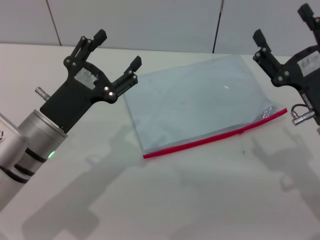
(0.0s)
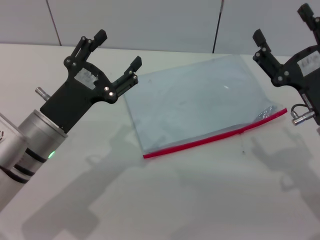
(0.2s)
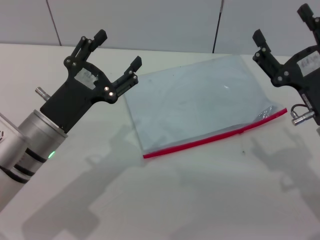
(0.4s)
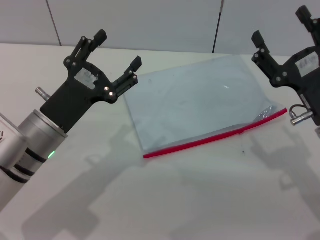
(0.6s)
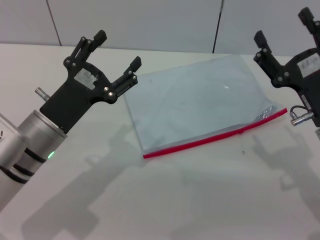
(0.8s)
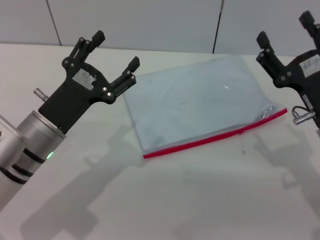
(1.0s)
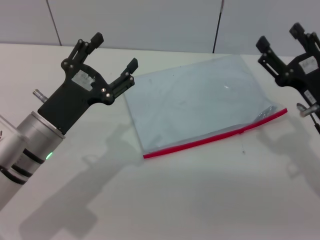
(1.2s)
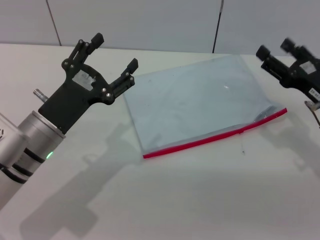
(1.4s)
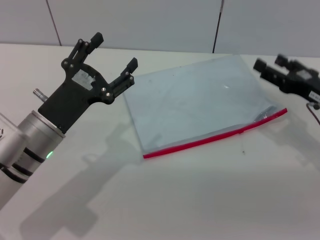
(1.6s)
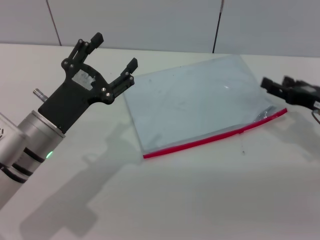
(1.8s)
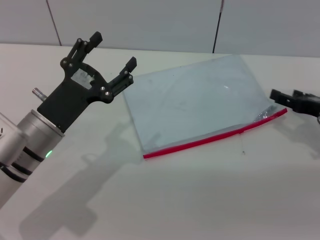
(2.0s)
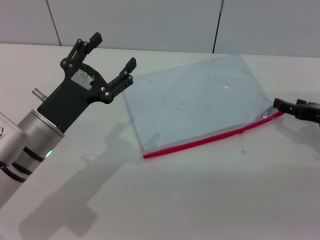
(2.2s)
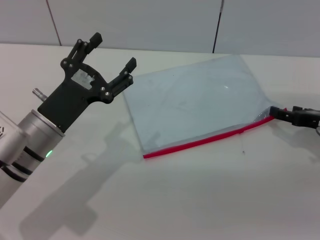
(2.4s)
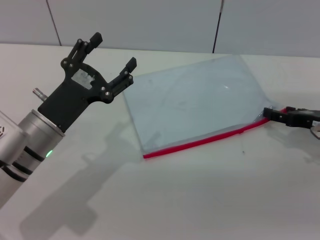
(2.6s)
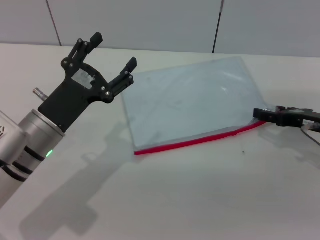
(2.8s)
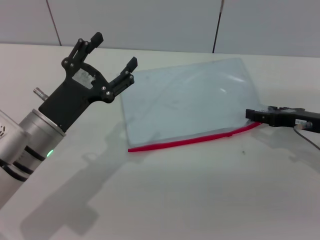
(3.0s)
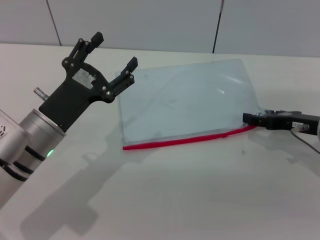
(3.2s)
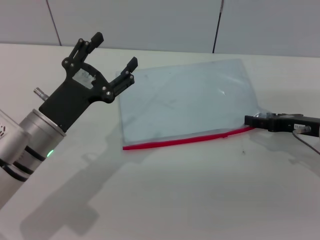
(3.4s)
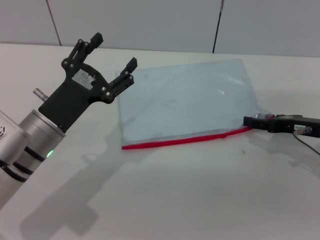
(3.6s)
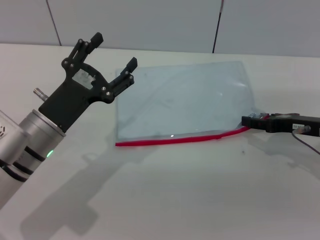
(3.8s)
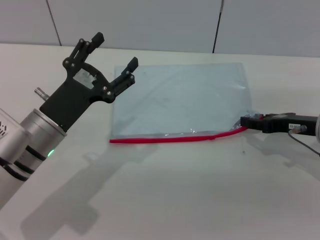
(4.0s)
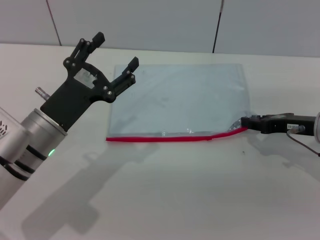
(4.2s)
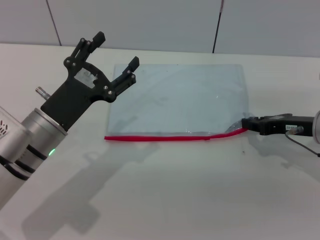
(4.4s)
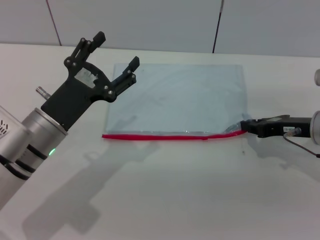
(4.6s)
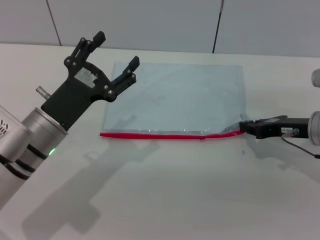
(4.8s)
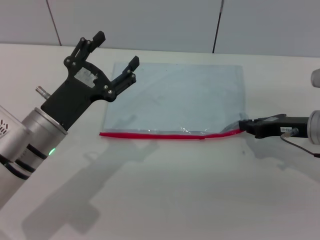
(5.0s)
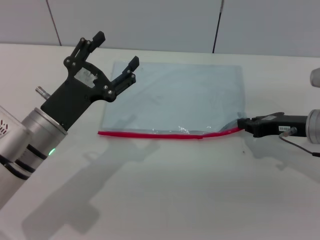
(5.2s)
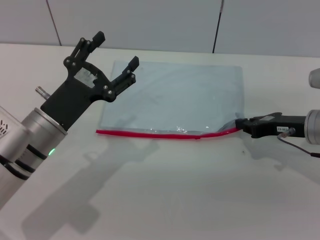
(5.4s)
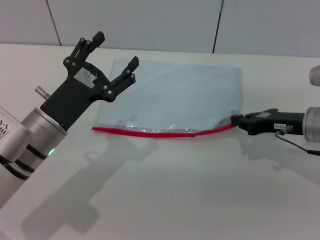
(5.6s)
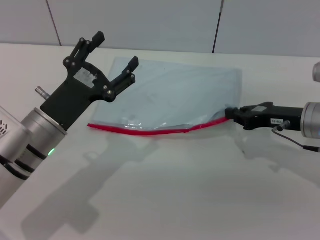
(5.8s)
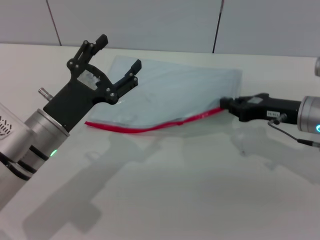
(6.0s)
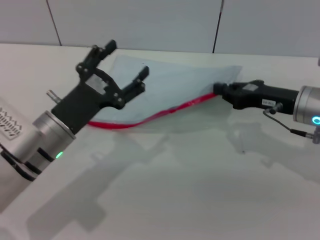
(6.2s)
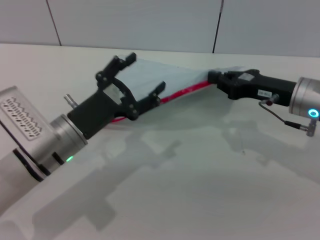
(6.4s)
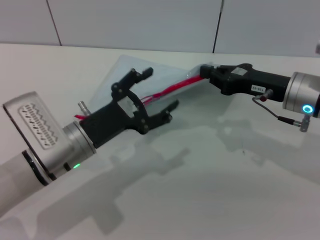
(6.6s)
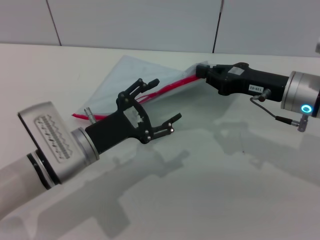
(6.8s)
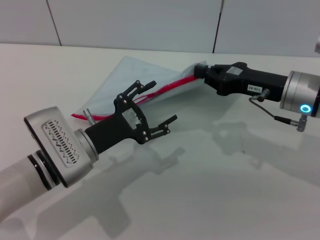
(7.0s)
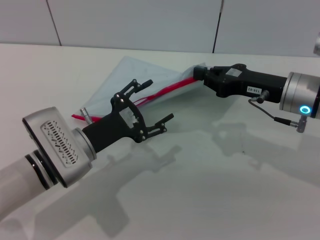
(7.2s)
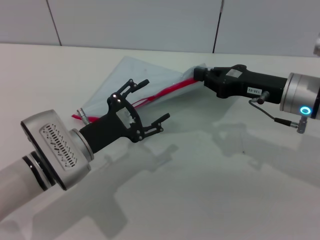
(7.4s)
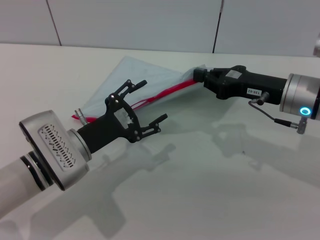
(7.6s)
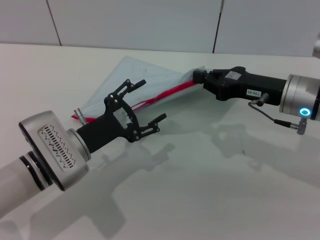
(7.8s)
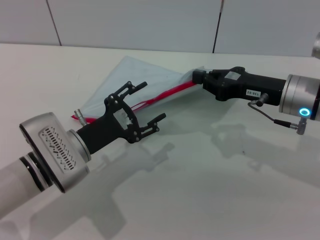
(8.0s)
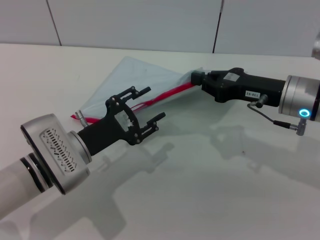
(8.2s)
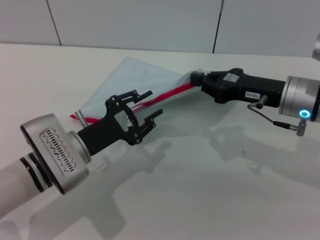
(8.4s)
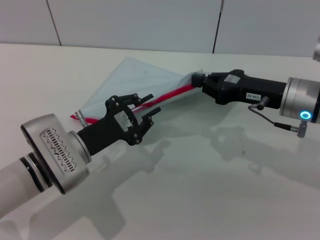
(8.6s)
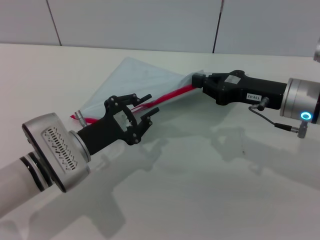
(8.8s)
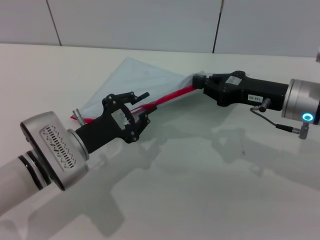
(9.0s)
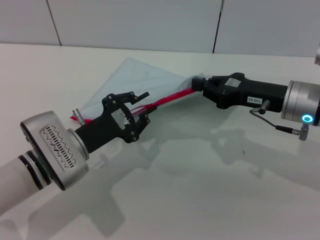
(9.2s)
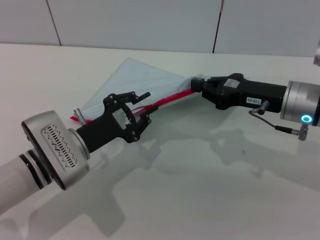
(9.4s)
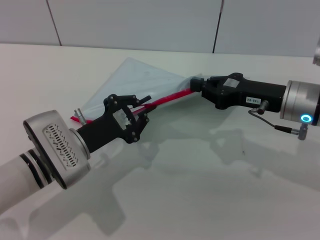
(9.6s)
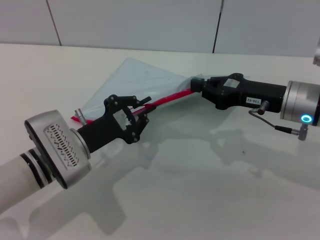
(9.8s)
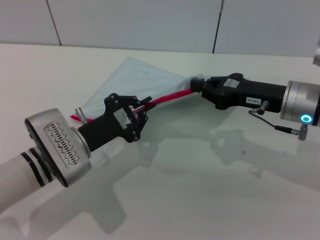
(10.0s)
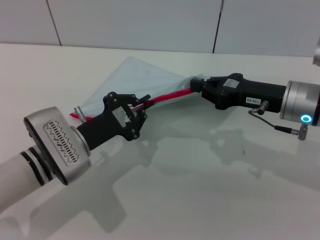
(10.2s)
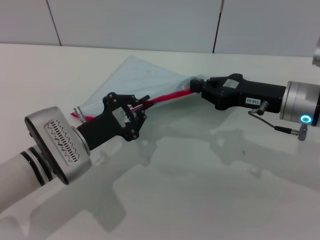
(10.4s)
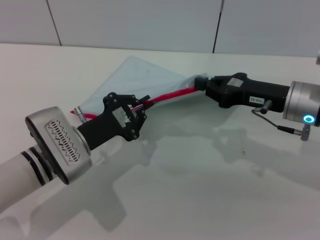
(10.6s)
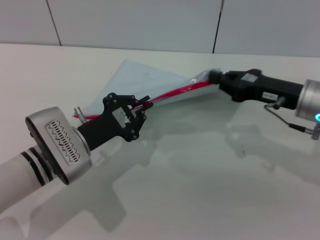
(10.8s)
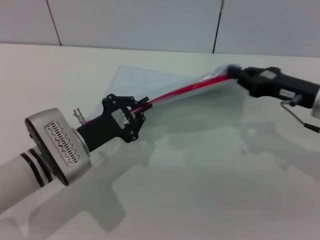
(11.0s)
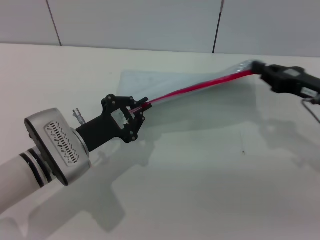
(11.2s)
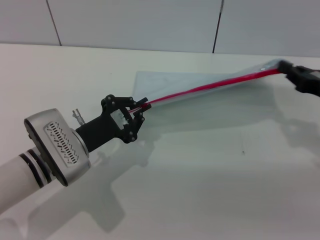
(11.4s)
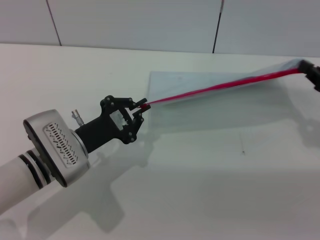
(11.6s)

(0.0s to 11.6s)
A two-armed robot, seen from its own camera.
Step, 0.0s - 6.2s: Pick up the transparent plastic bag with the right gripper.
0.0s - 1.4s: The right gripper ends up roughly 5 cm from where it was.
2.8s - 4.4s: The right gripper closes.
4.4s - 5.8s: The right gripper closes up.
5.8s - 7.2s: The right gripper shifts by roughly 5 cm.
7.2s - 8.8s: The left gripper closes up.
8.8s - 10.2s: The two grippers keep their place.
10.2s - 11.6s: The right gripper is displaced to the right by roughly 15 cm.

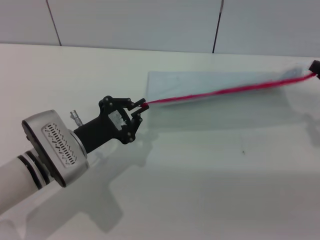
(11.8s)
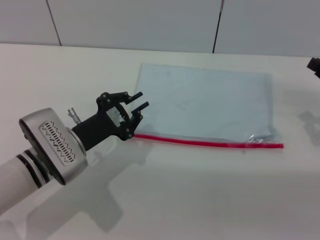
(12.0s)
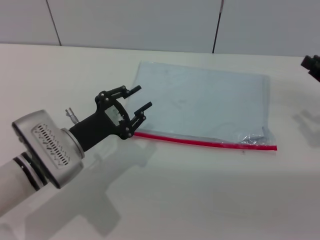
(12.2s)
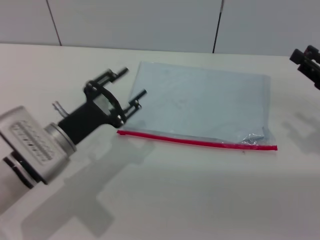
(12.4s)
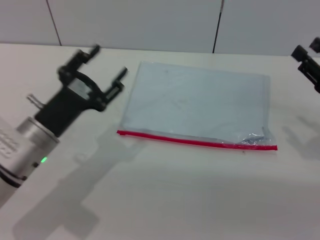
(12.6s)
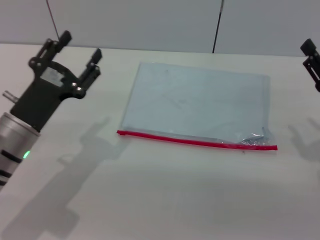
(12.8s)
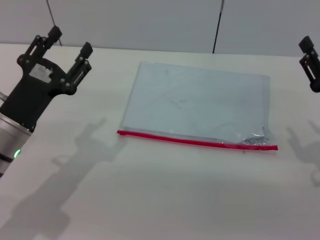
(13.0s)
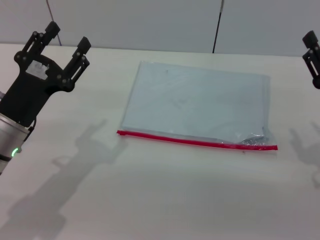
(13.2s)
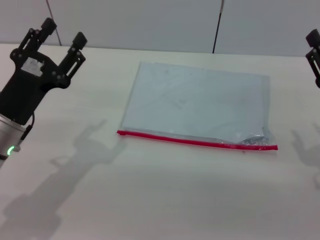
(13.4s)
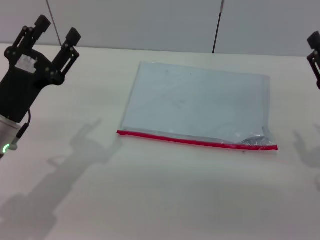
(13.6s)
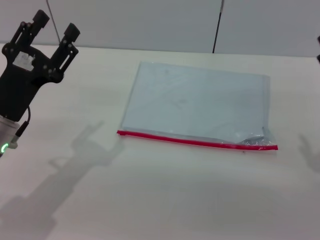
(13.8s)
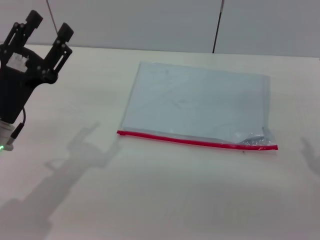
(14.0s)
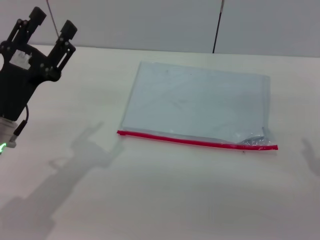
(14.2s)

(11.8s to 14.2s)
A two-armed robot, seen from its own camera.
Step, 12.0s - 12.2s: Place the transparent plastic bag.
11.8s - 13.0s: The two grippers go approximately 5 cm to the left. The right gripper opens up; the left gripper opens.
13.0s - 14.2s: There are only small adjustments of the grippers.
